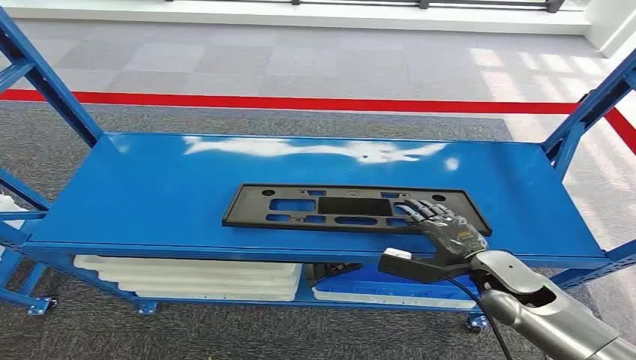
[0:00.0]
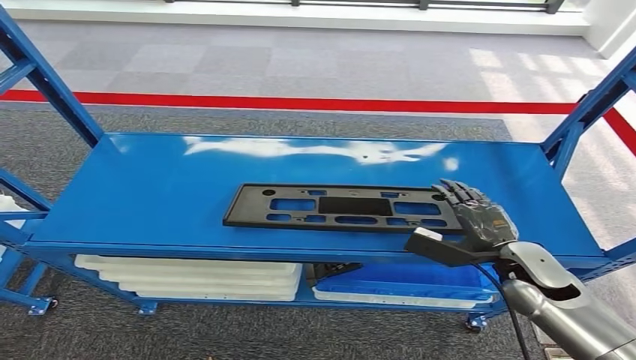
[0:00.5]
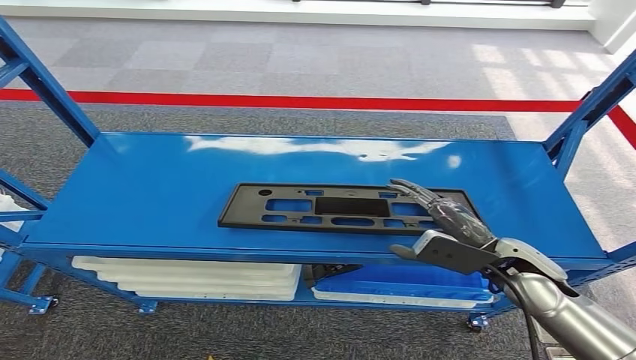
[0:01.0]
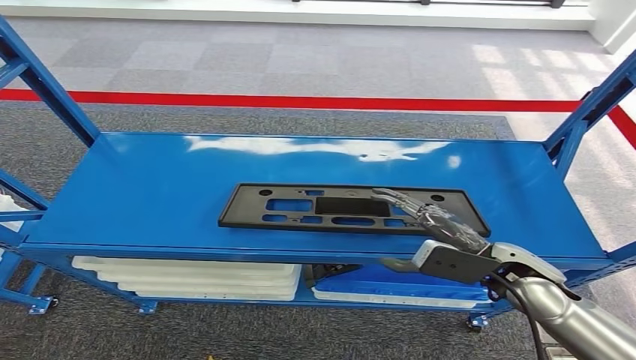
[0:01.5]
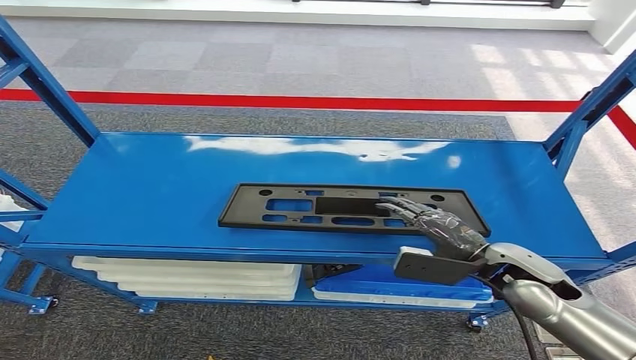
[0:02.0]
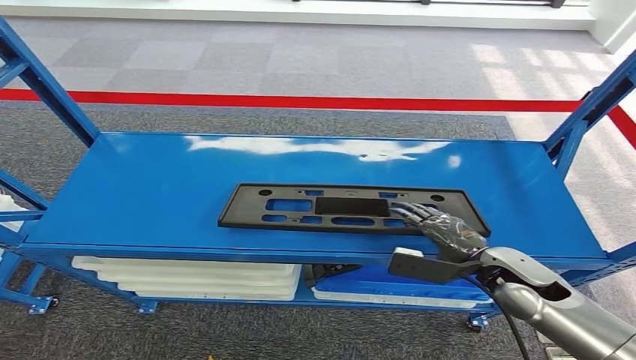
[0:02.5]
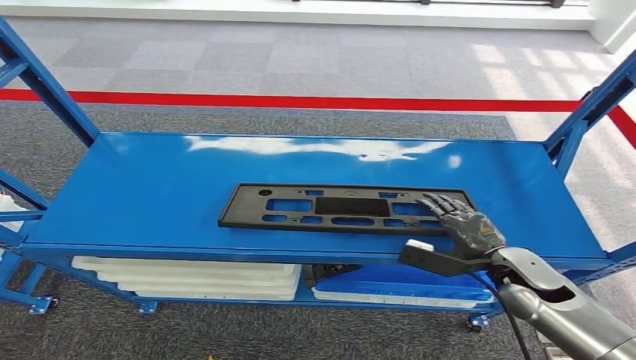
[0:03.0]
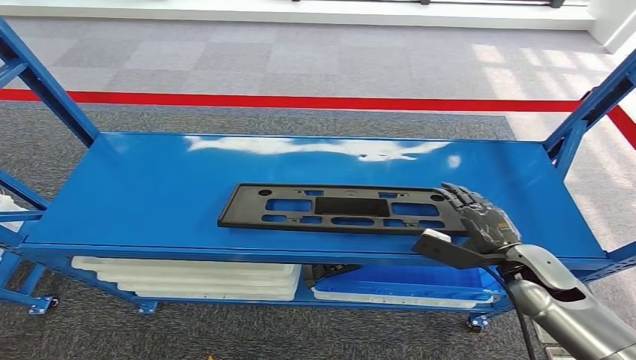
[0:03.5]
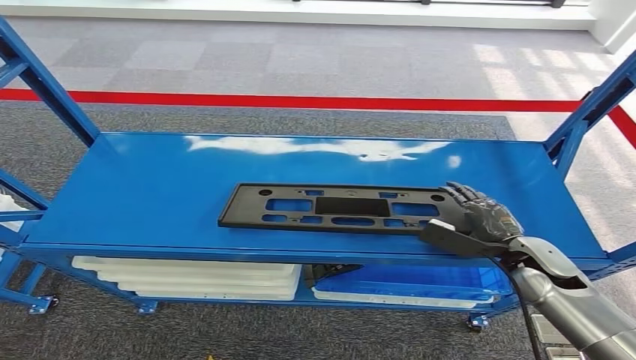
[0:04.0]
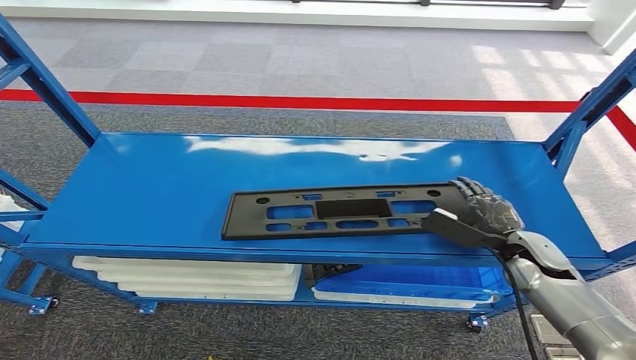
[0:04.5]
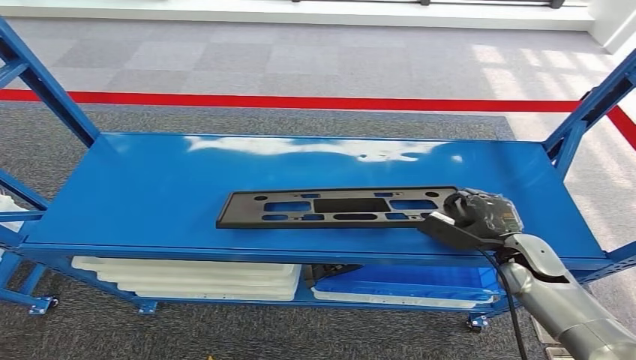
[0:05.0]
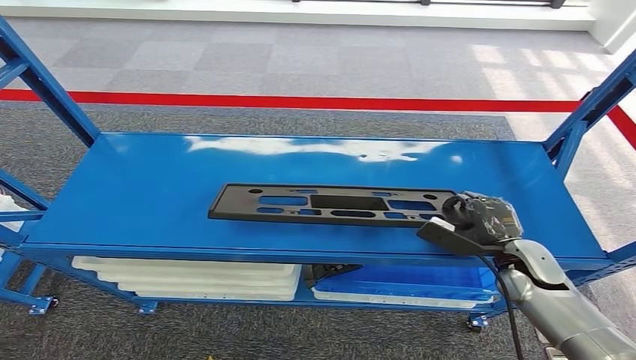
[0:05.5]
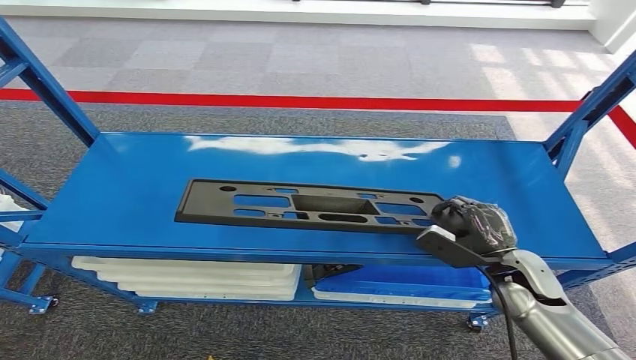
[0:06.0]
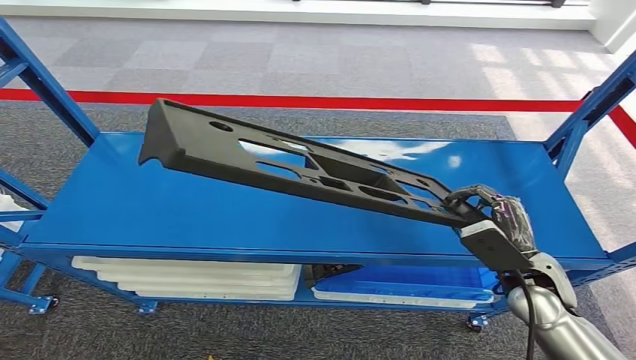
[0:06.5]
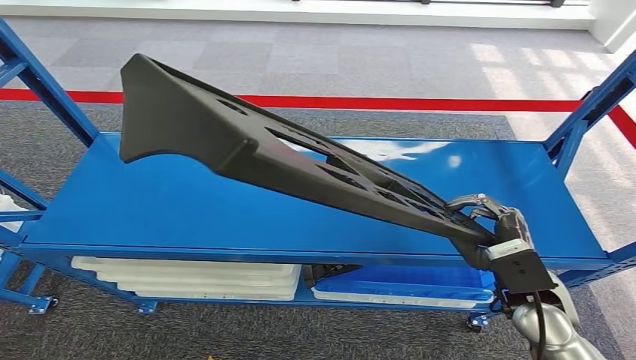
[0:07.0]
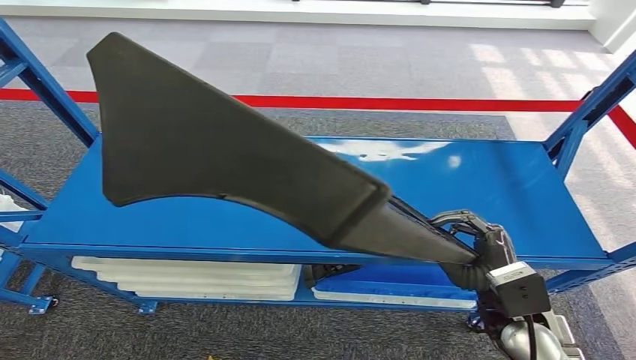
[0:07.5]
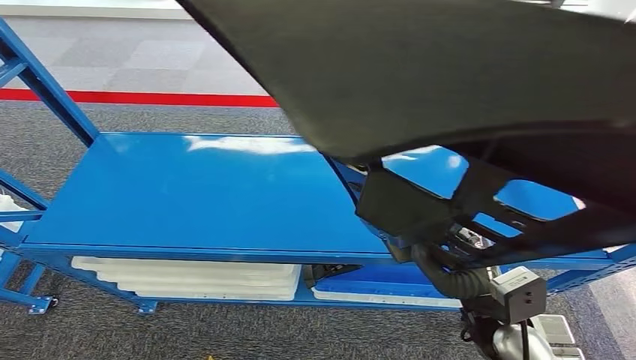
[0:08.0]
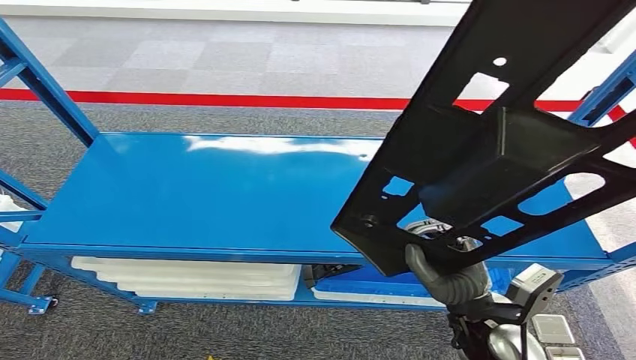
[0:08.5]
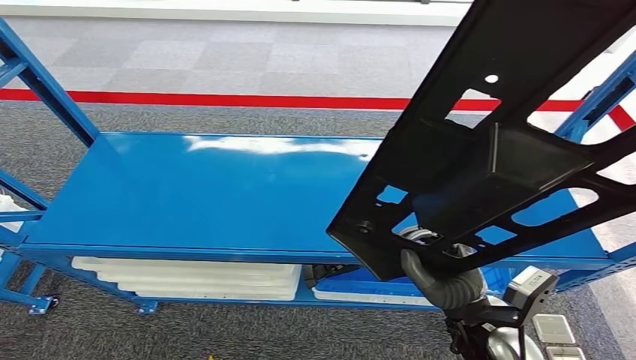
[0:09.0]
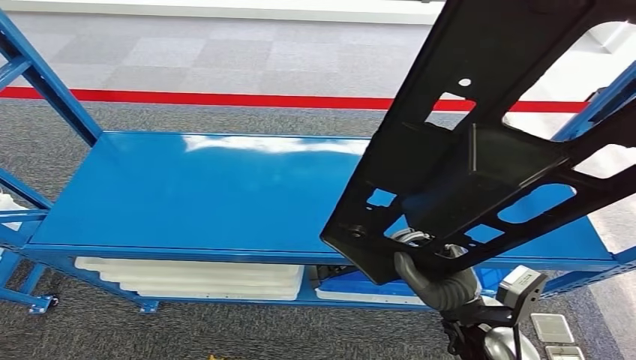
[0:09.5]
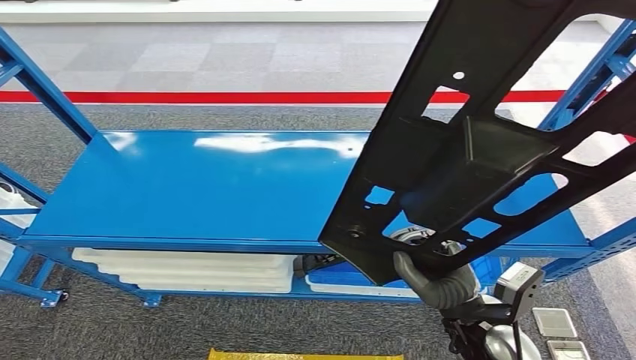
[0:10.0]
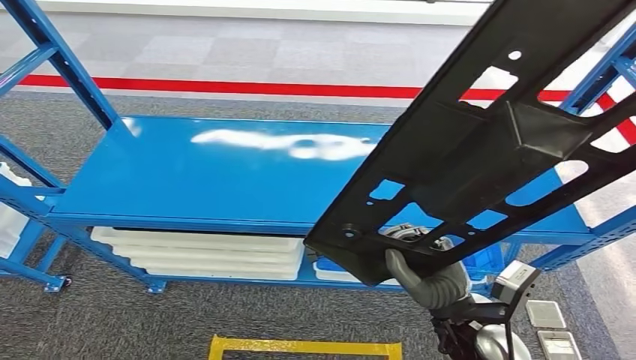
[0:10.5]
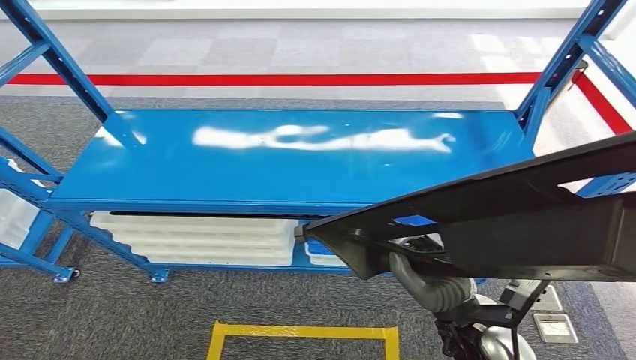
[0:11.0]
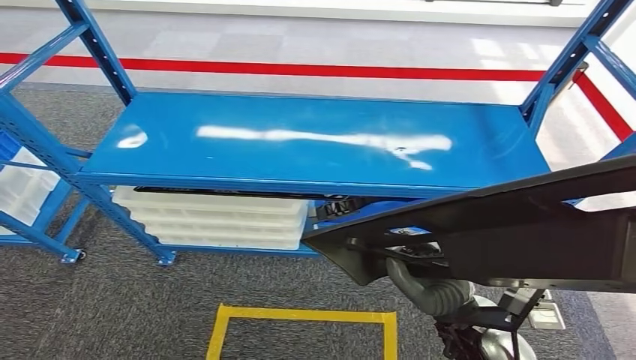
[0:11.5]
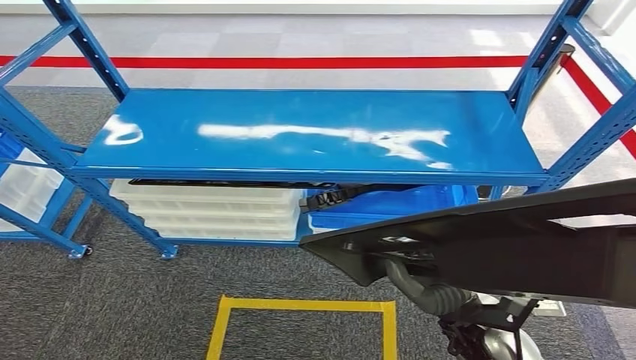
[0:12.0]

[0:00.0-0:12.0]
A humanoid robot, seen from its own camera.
Step, 0:00.0 to 0:07.5: Pick up the large material from the shelf.
0:02.0 to 0:04.0: The right hand is displaced to the right by approximately 5 cm.
0:04.0 to 0:06.0: The hands move only a little.

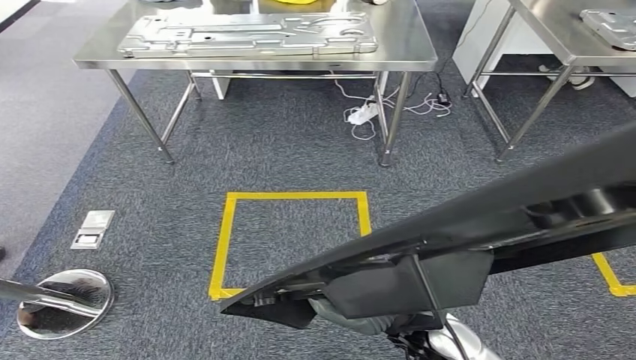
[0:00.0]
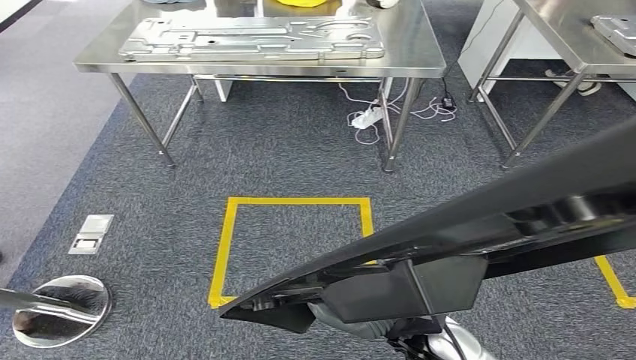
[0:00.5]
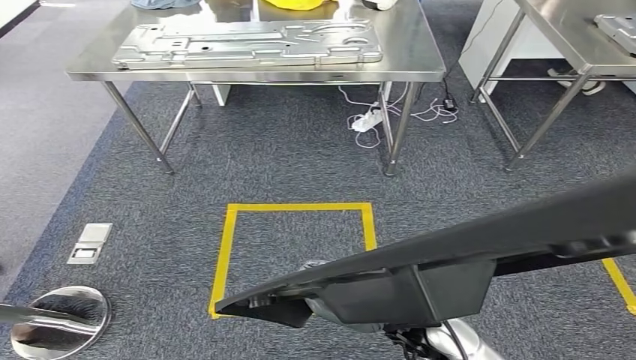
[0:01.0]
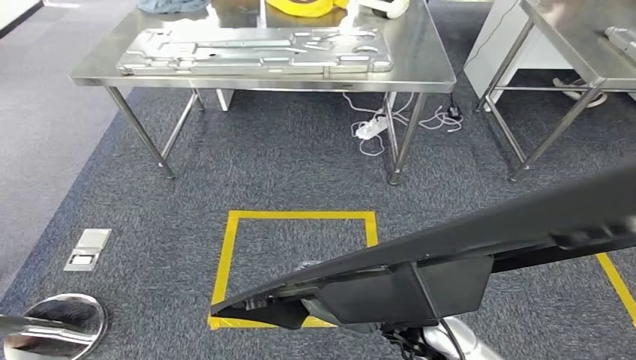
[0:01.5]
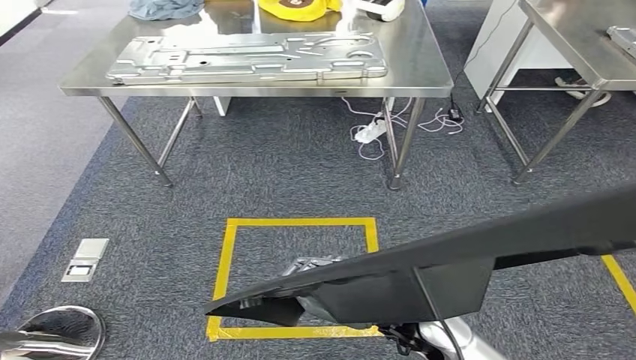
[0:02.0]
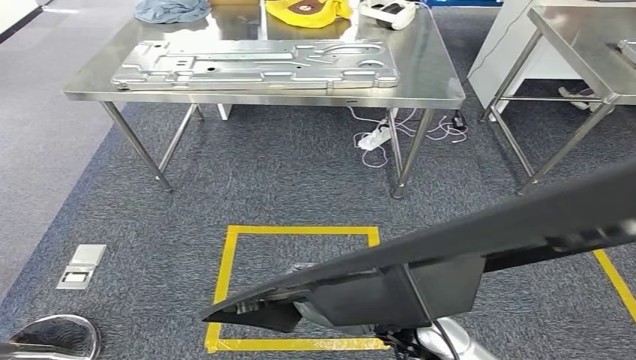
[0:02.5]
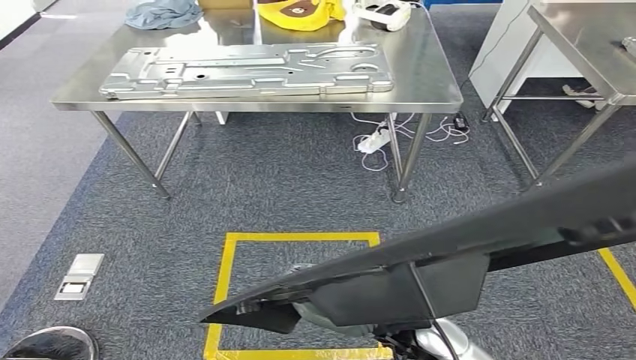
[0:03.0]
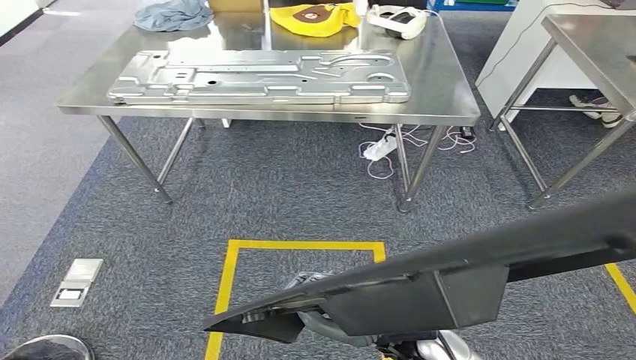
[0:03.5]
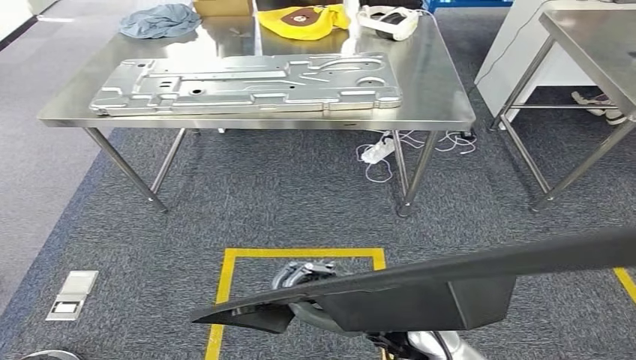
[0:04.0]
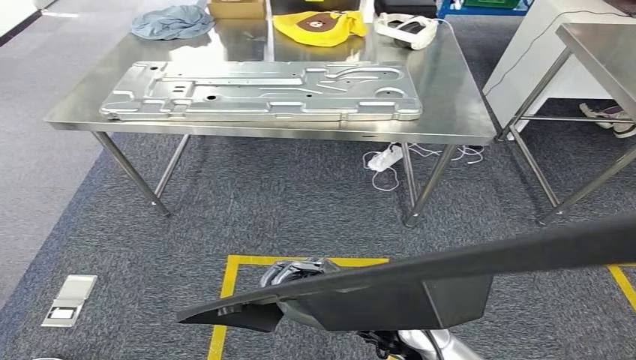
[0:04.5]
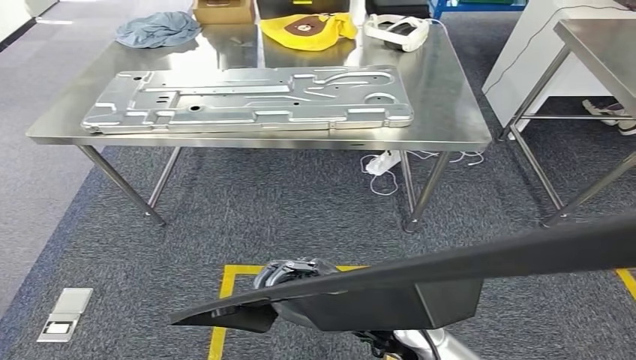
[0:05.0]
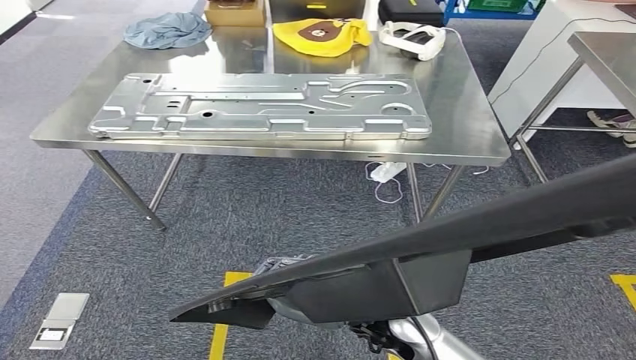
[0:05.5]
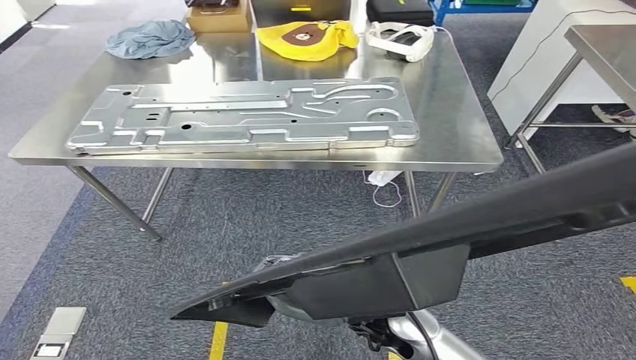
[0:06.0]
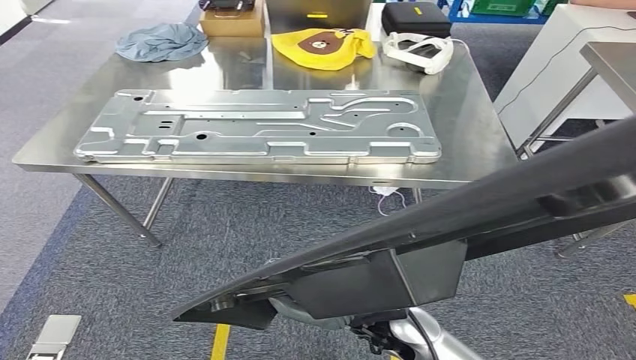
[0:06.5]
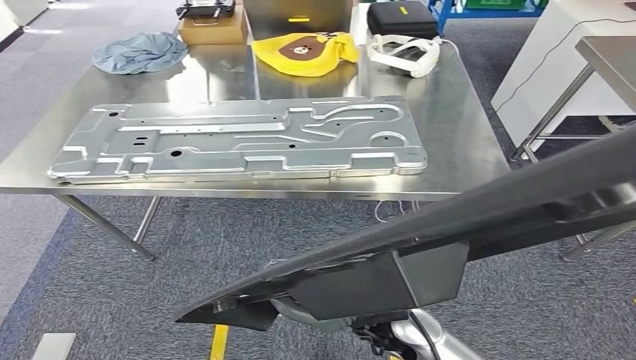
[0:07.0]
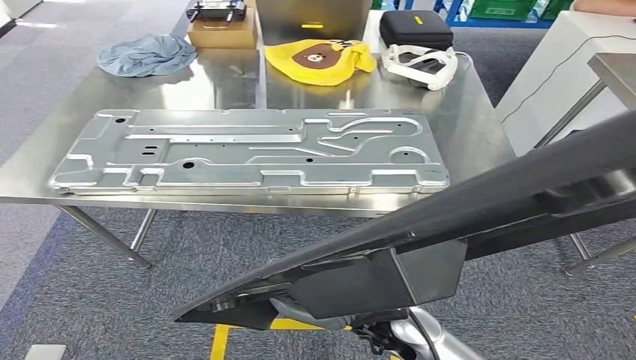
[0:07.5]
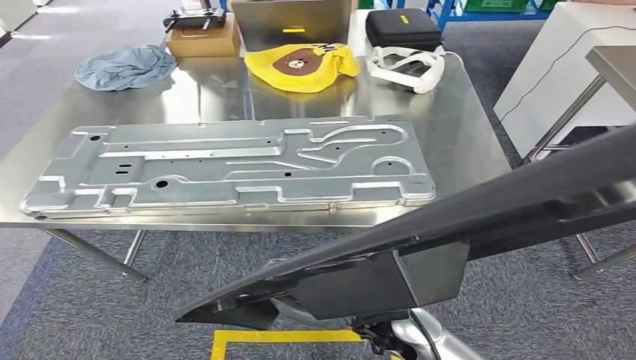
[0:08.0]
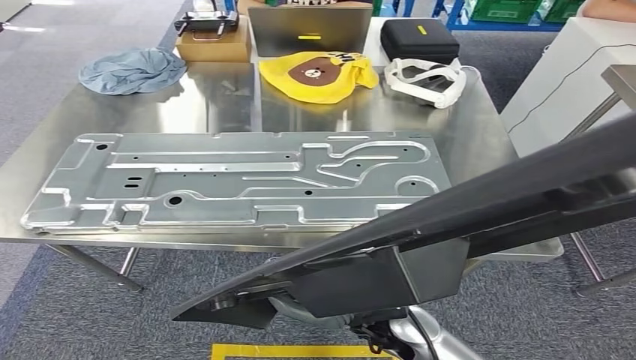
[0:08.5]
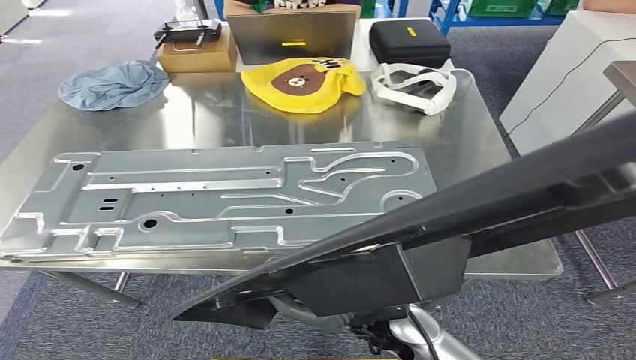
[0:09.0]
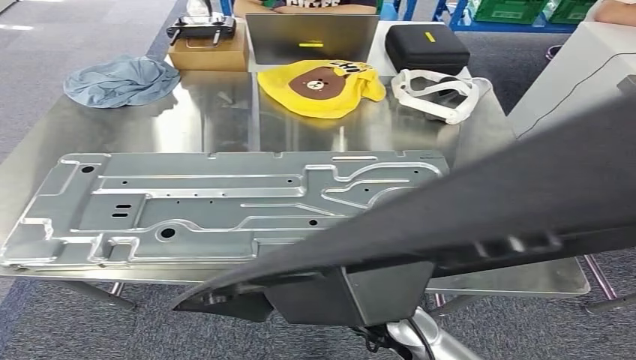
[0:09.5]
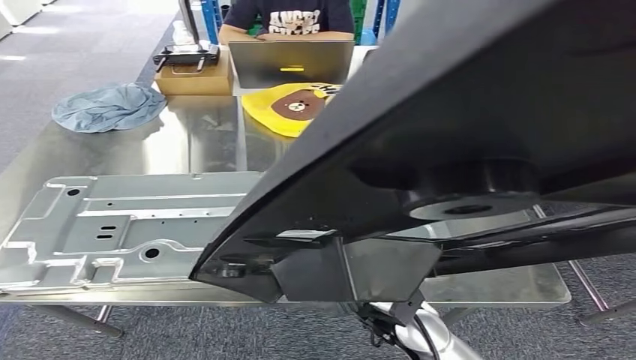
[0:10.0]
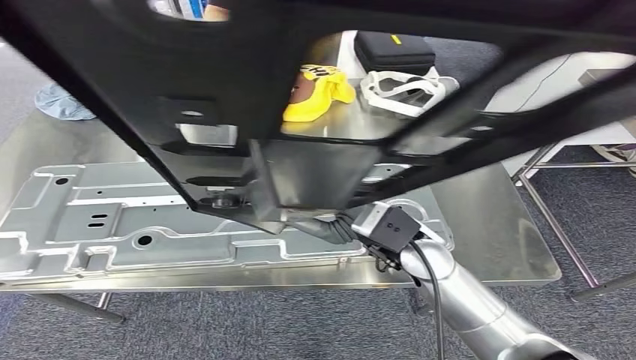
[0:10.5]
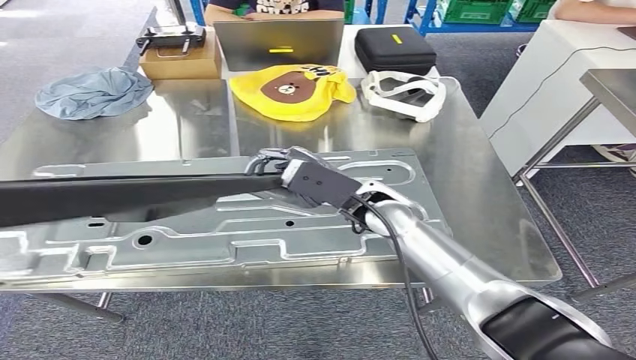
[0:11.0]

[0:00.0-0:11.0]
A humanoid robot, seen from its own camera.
Step, 0:00.0 to 0:10.0: Move the large material to the workbench.
